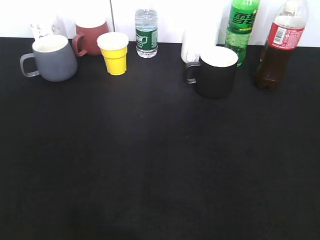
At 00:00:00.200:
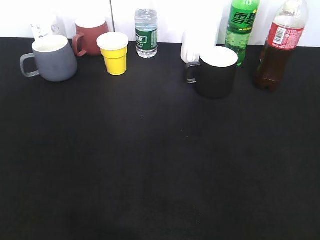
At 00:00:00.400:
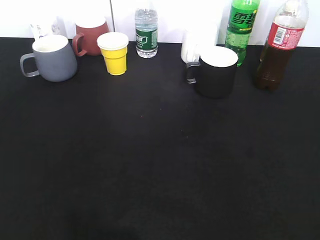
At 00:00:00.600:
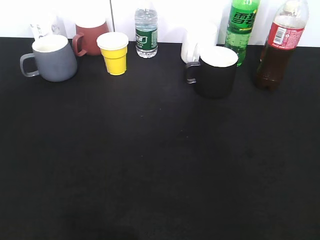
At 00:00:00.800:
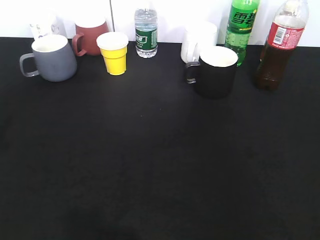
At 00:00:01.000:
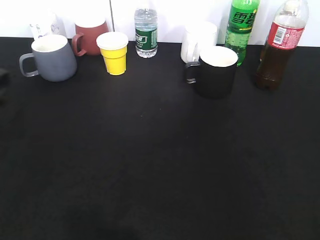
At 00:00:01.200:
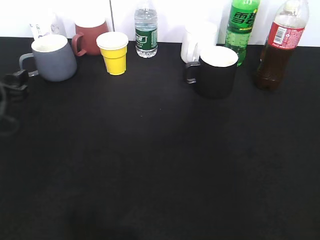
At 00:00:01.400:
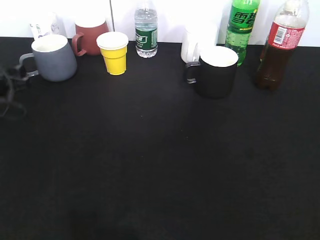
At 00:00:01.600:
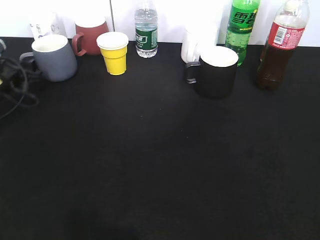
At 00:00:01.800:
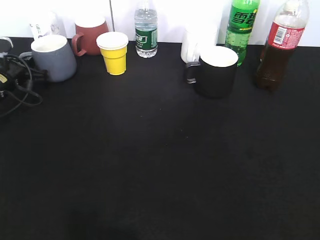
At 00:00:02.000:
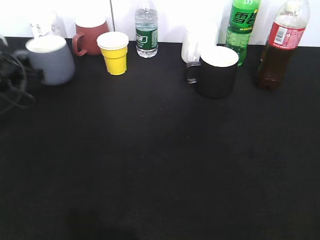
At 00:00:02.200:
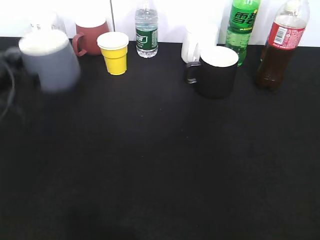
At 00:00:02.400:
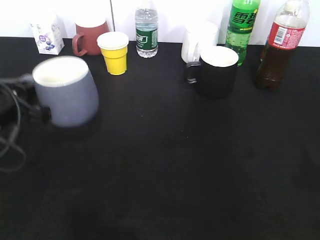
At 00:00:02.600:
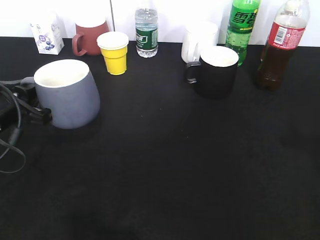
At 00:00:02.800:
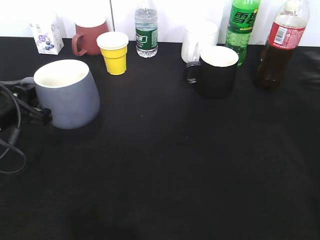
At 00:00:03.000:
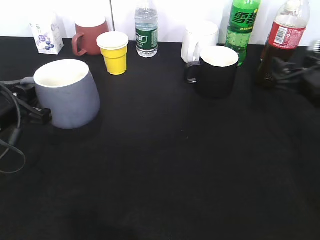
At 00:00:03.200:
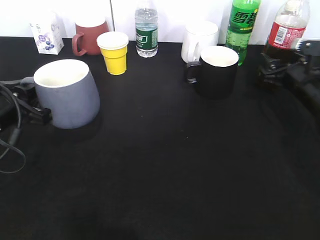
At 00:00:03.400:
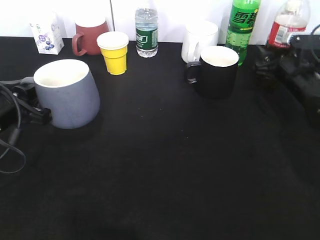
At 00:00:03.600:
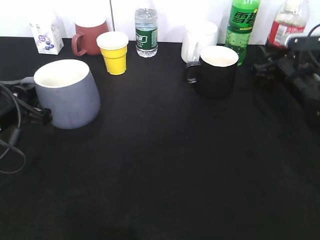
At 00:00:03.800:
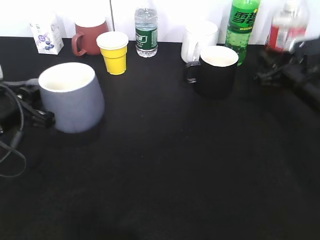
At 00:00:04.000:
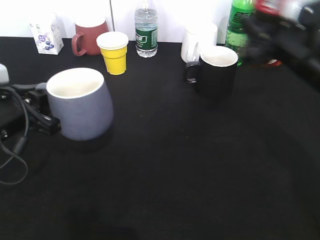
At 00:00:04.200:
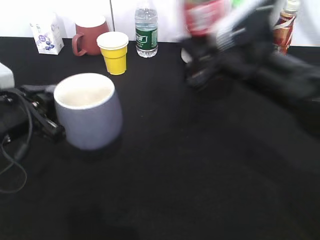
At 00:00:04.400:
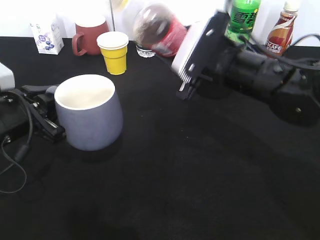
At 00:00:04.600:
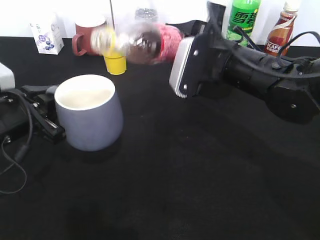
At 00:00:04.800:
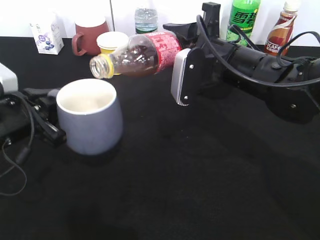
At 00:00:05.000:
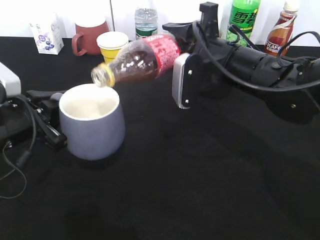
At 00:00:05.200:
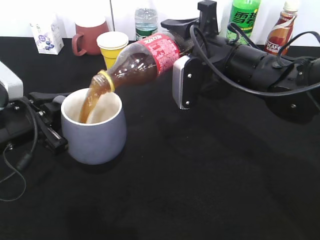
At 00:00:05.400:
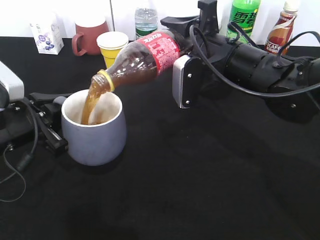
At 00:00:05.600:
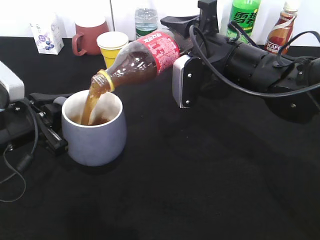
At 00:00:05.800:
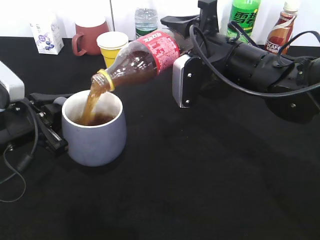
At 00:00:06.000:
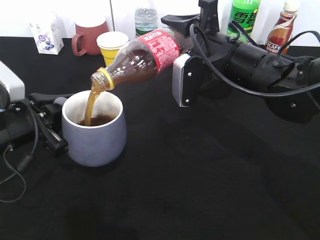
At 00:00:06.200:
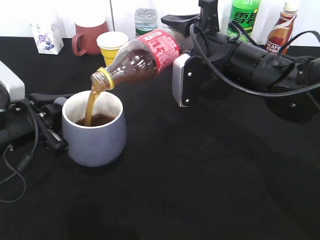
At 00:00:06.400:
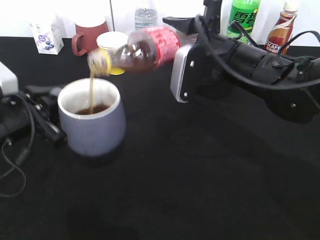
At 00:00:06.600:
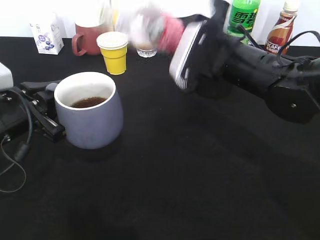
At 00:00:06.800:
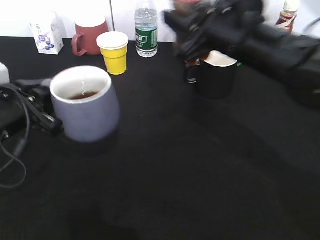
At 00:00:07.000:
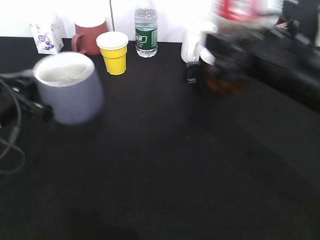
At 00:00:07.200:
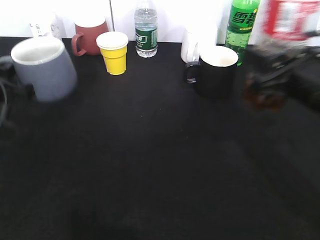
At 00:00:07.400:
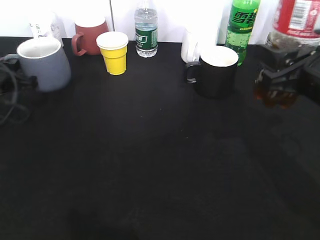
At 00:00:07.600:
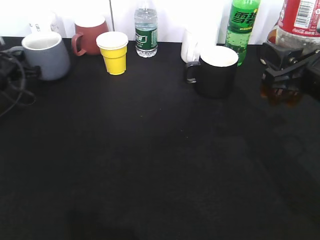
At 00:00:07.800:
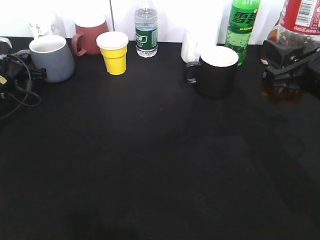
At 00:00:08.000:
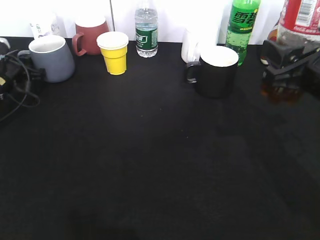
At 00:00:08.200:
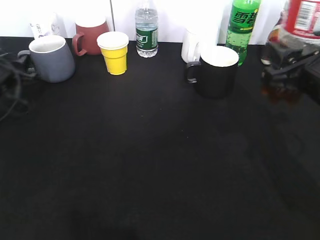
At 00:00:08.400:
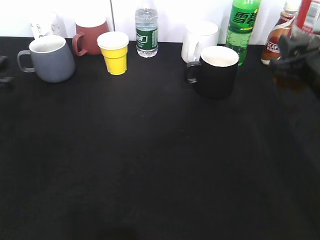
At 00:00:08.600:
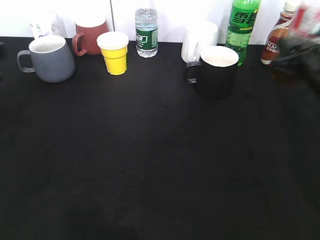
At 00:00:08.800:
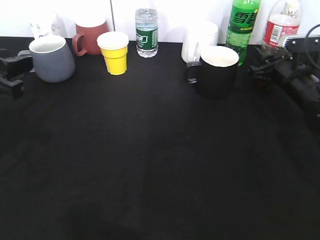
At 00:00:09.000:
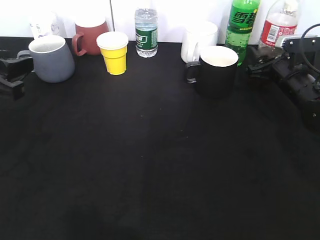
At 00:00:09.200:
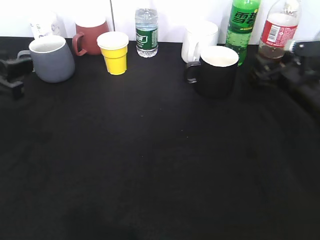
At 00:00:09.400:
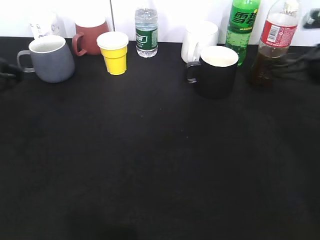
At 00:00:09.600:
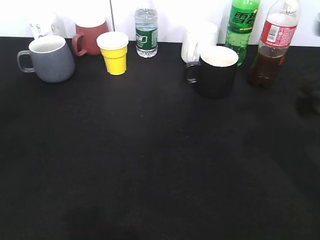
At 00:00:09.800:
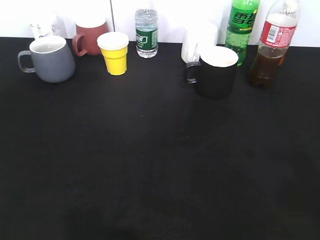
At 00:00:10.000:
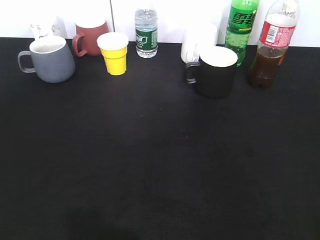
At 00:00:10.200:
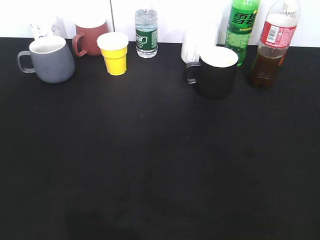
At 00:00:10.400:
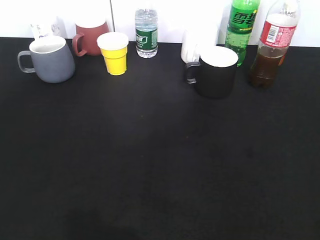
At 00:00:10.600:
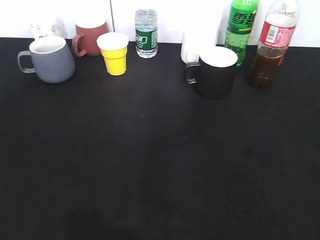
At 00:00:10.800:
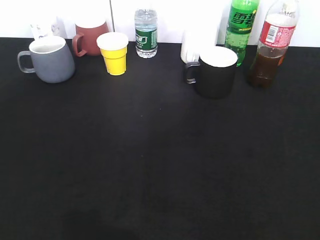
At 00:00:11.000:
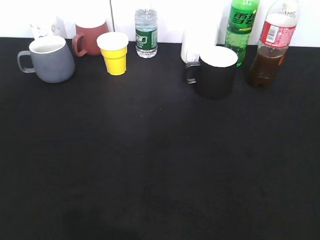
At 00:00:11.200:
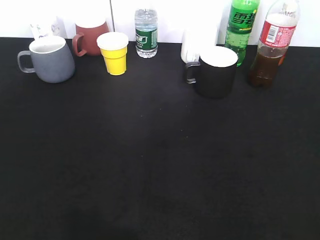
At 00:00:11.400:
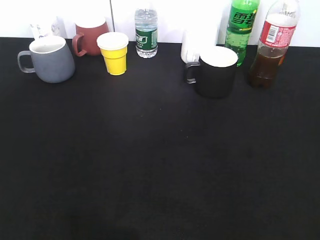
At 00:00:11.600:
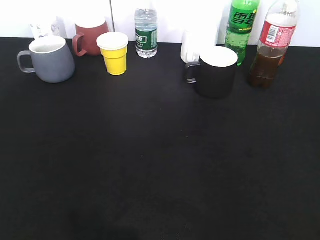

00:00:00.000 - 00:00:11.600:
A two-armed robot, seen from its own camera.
Step, 00:00:02.200 - 00:00:02.600: Lift the grey cup with left gripper.
Step, 00:00:02.800 - 00:00:03.600: Grasp the bottle with cola with right gripper.
Step, 00:00:03.800 - 00:00:06.200: Pour the cola from bottle to cup with right gripper.
Step, 00:00:06.400 - 00:00:08.400: Place the grey cup on the table with left gripper.
Step, 00:00:08.600 - 00:00:09.400: Place the cola bottle on the table with right gripper.
00:00:00.000 - 00:00:01.400: The left gripper heads forward and downward, covering roughly 40 cm.
00:00:01.400 - 00:00:02.800: The left gripper shifts about 15 cm backward and to the right, and closes up.
00:00:02.800 - 00:00:04.400: The right gripper travels to the left by some 20 cm, and closes up.
00:00:05.800 - 00:00:07.200: The left gripper travels to the left and forward by some 10 cm. The right gripper travels to the right and backward by about 15 cm.
00:00:07.200 - 00:00:08.800: The right gripper is displaced forward and downward by roughly 20 cm, while the left gripper goes roughly 5 cm upward, goes forward and returns, about 15 cm each way, and opens its fingers.
00:00:08.800 - 00:00:10.200: The left gripper is displaced backward by approximately 20 cm. Meanwhile the right gripper goes about 40 cm backward and upward, and opens.
